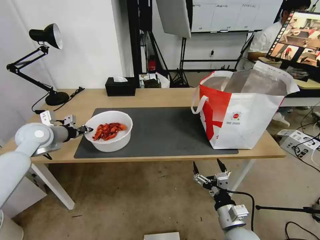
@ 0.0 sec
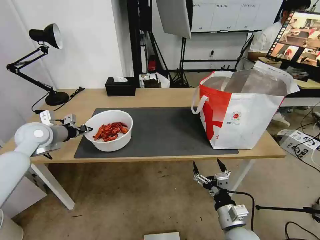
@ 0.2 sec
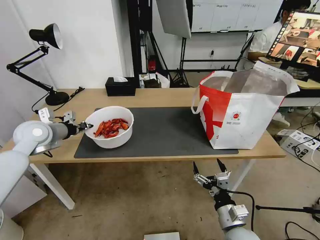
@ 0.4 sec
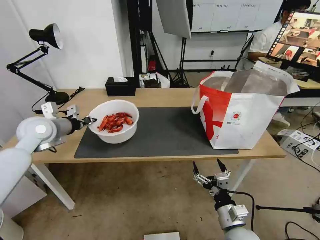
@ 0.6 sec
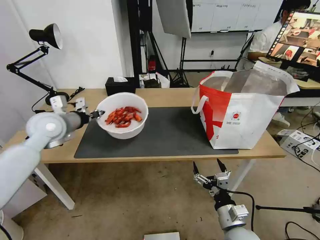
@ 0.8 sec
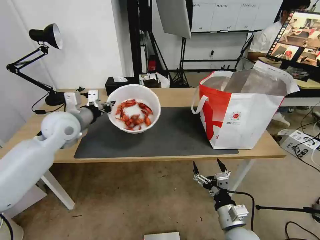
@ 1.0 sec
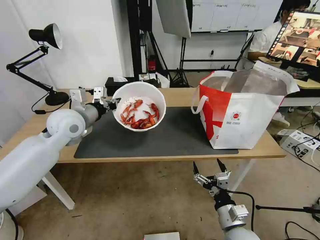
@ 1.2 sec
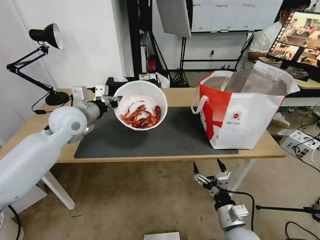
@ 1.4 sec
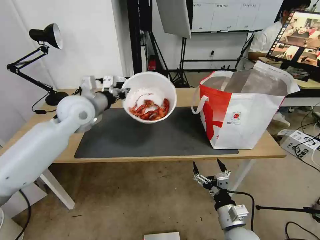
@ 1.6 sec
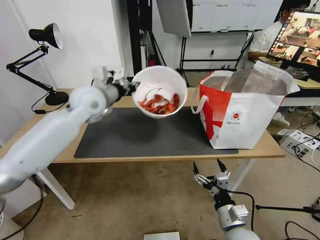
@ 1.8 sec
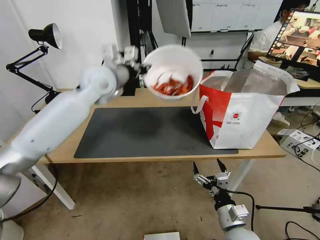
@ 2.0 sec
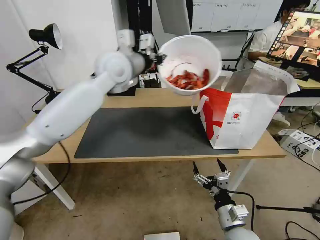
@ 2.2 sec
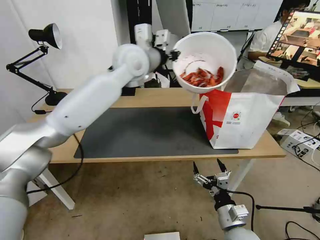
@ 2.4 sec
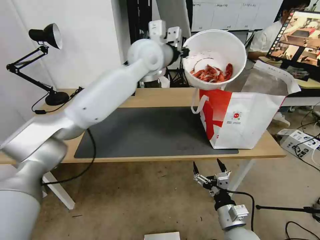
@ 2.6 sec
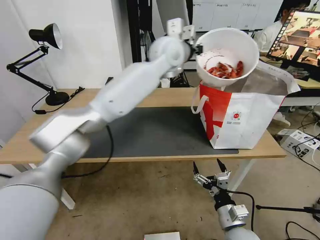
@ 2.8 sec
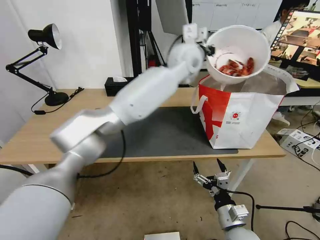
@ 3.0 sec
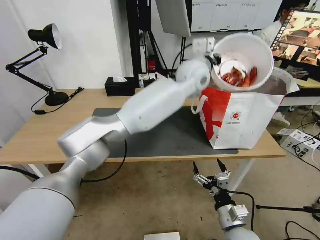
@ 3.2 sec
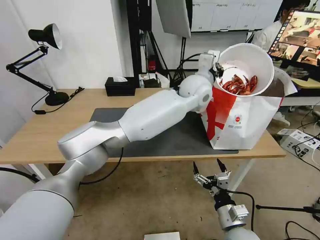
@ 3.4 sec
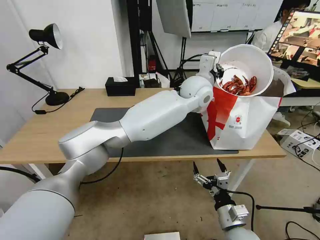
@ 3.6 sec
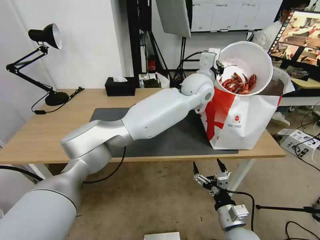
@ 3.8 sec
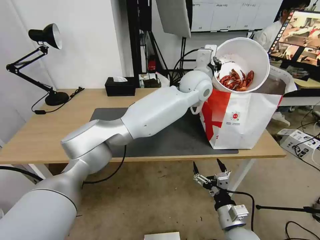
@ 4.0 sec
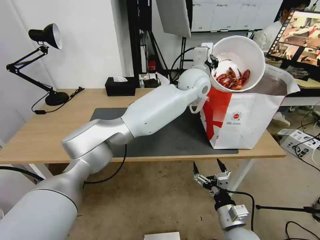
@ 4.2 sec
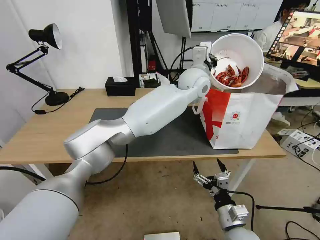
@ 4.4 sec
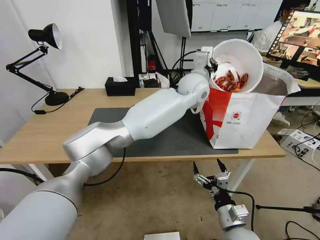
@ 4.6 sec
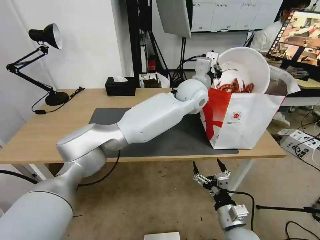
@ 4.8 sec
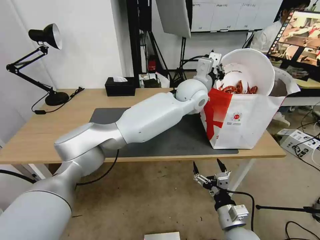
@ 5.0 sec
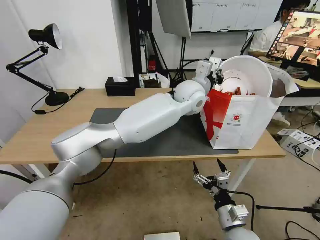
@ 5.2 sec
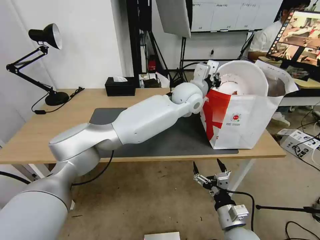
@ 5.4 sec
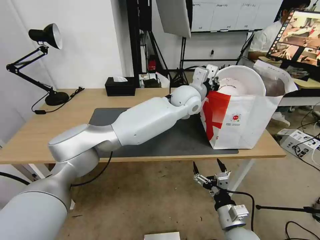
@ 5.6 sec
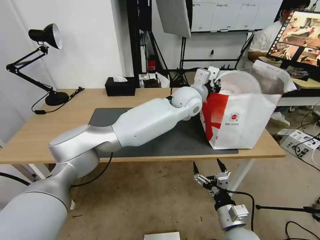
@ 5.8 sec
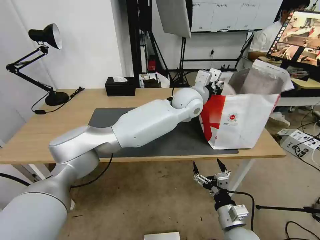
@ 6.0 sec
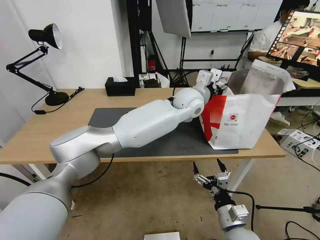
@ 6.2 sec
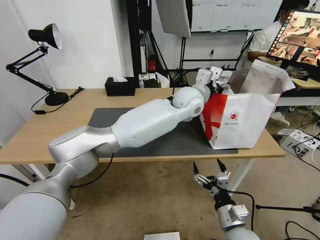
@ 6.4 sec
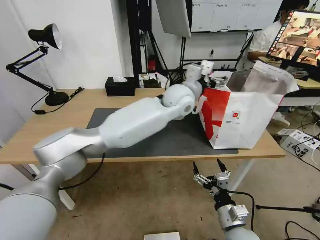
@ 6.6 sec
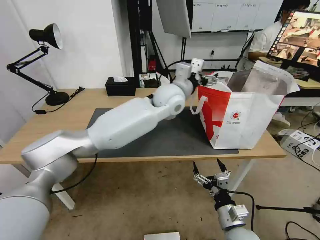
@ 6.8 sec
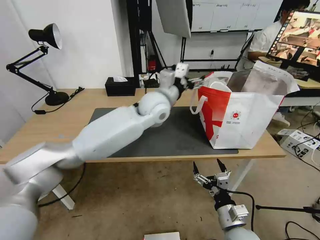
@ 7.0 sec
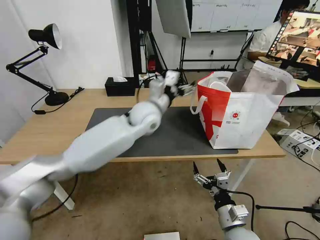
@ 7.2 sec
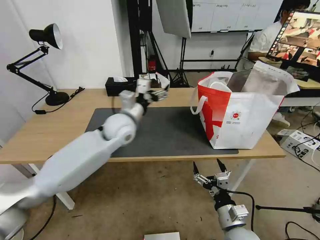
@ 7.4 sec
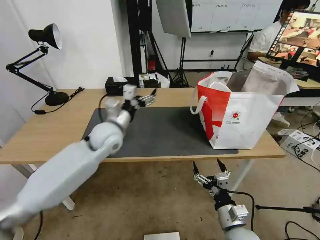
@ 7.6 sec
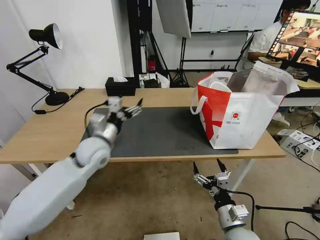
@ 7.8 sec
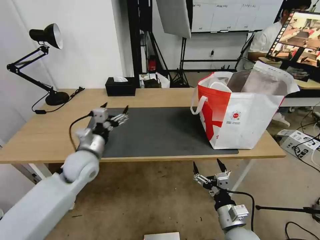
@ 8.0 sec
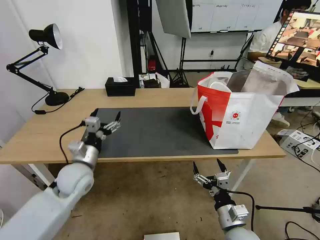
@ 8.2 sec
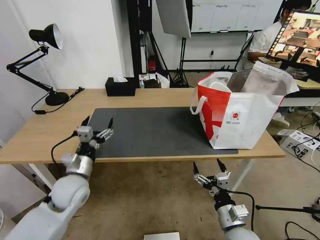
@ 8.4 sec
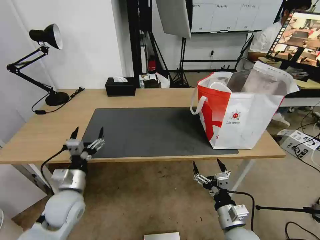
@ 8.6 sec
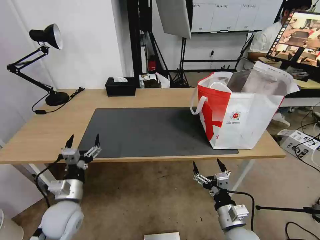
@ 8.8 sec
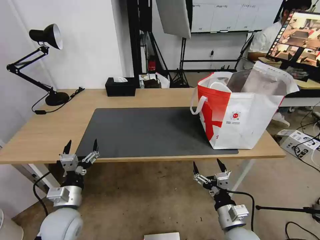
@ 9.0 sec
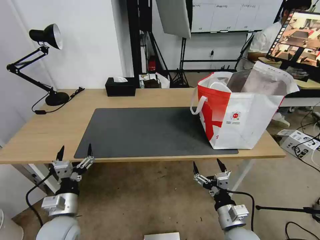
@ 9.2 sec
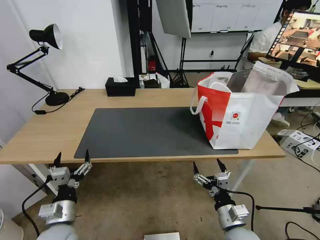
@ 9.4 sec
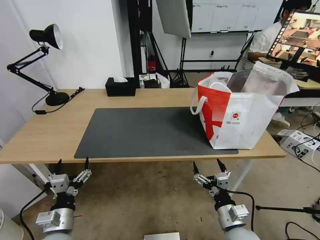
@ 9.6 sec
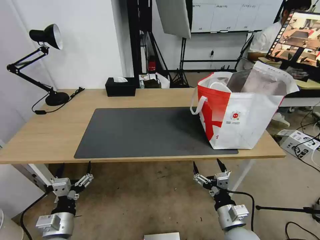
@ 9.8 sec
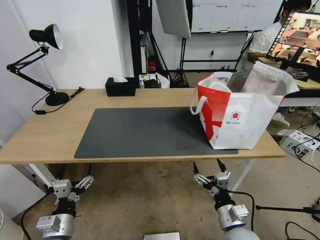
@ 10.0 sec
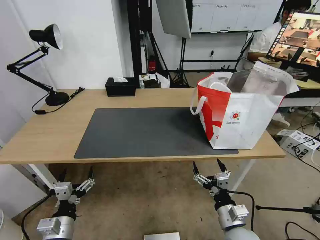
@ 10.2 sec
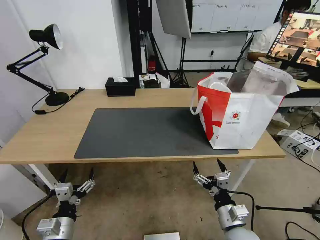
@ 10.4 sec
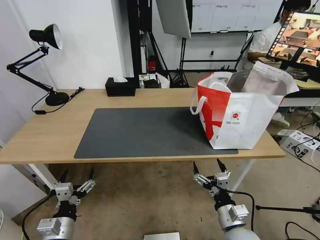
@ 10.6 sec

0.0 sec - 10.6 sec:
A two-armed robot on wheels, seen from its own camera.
Task of the whole recording: Pick up the trash from the table and place it into the takeout bag.
0.0 sec - 1.6 sec: The left gripper is displaced to the right and upward by roughly 15 cm.
1.6 sec - 3.0 sec: The left gripper is displaced to the right by about 30 cm.
3.0 sec - 4.6 sec: The left gripper moves downward, about 10 cm.
4.6 sec - 6.0 sec: The grippers stay close to where they were, moving slightly.
6.0 sec - 7.6 sec: The left gripper is displaced to the left by about 25 cm, and opens.
7.6 sec - 9.0 sec: The left gripper heads backward, downward and to the left, covering some 30 cm.
9.0 sec - 10.6 sec: The left gripper moves backward, approximately 10 cm.

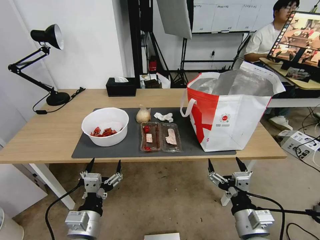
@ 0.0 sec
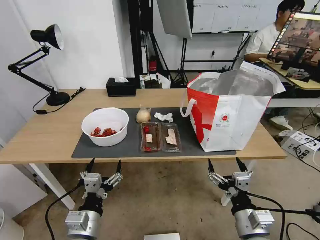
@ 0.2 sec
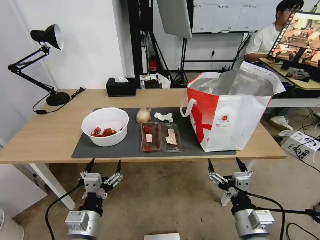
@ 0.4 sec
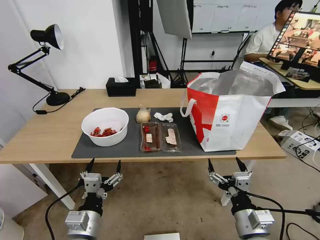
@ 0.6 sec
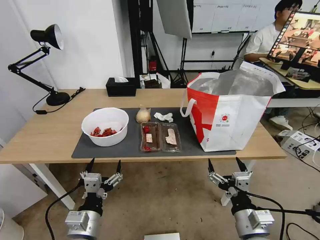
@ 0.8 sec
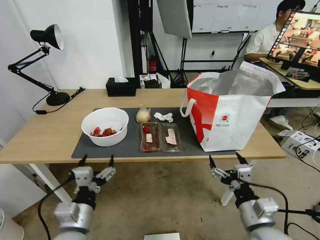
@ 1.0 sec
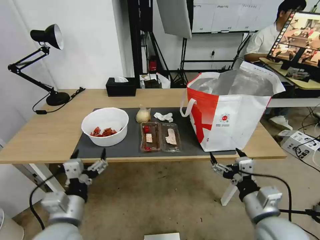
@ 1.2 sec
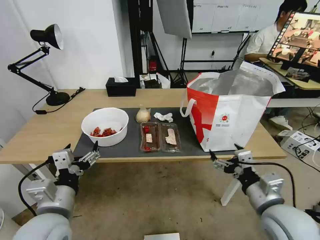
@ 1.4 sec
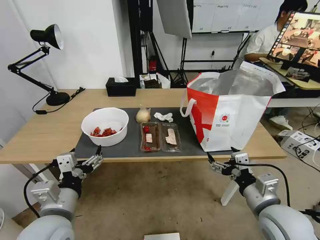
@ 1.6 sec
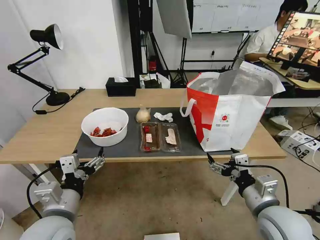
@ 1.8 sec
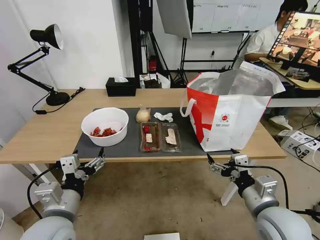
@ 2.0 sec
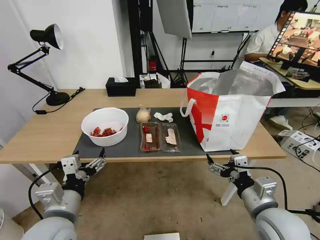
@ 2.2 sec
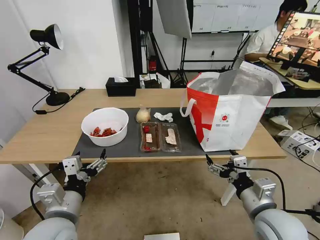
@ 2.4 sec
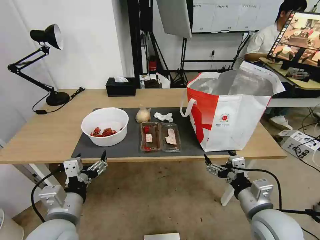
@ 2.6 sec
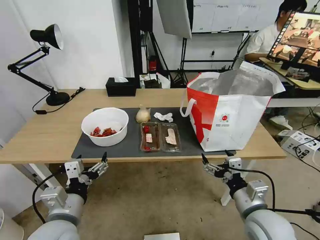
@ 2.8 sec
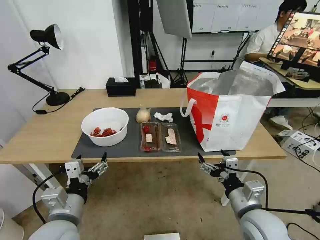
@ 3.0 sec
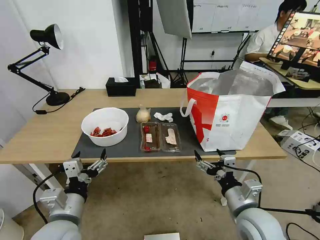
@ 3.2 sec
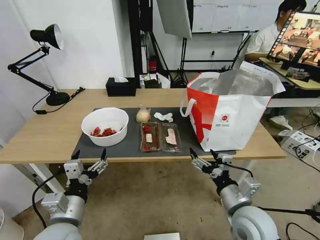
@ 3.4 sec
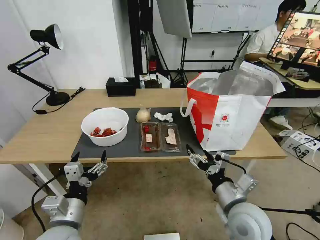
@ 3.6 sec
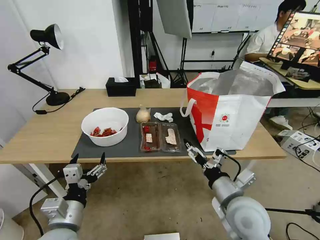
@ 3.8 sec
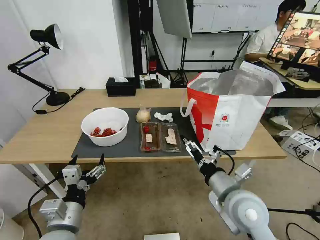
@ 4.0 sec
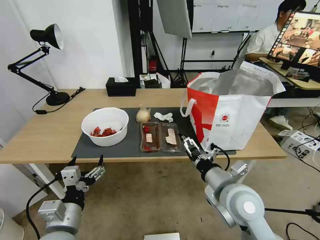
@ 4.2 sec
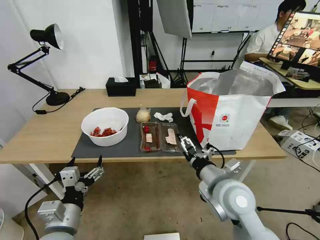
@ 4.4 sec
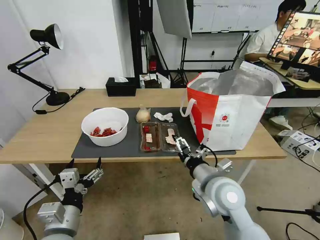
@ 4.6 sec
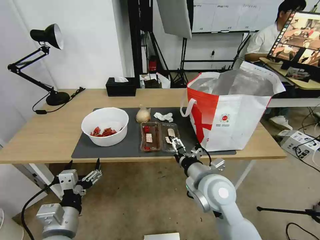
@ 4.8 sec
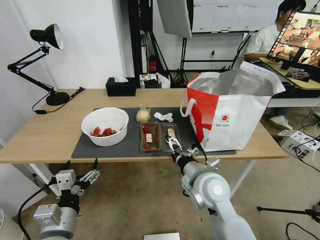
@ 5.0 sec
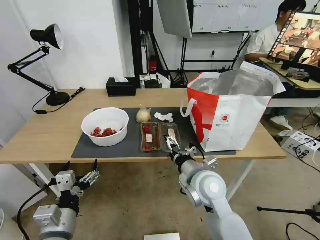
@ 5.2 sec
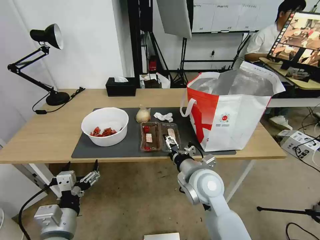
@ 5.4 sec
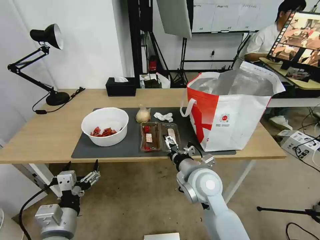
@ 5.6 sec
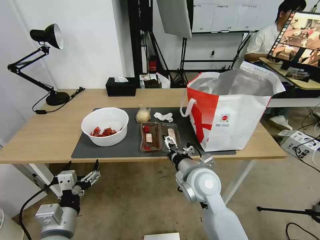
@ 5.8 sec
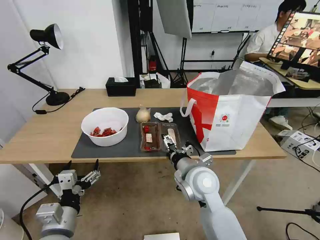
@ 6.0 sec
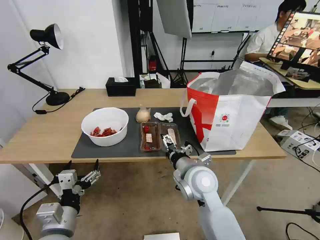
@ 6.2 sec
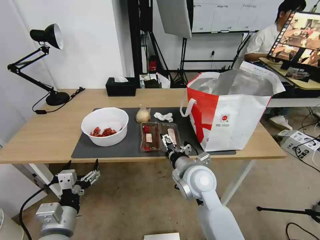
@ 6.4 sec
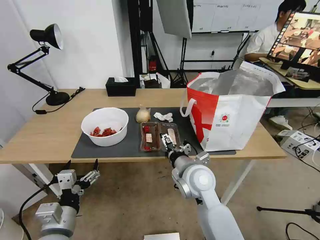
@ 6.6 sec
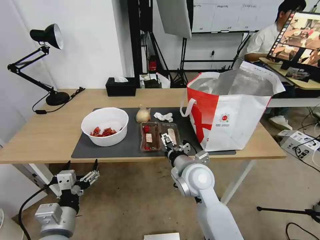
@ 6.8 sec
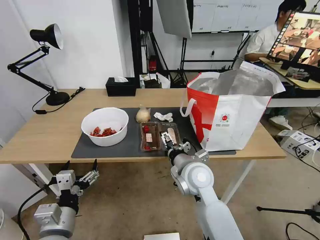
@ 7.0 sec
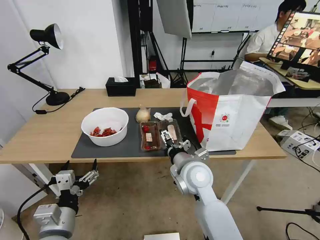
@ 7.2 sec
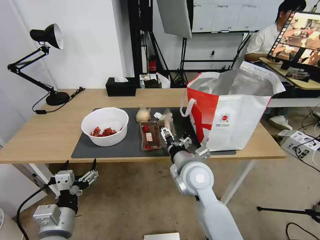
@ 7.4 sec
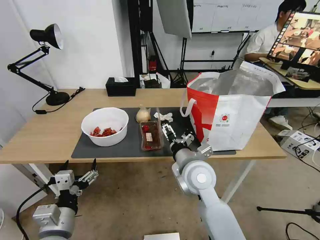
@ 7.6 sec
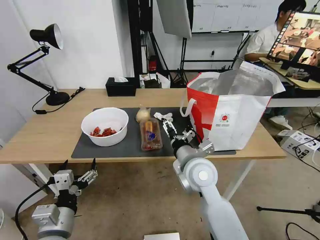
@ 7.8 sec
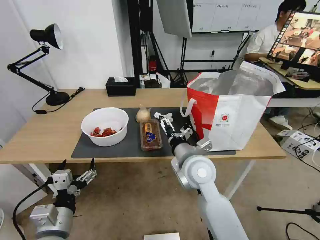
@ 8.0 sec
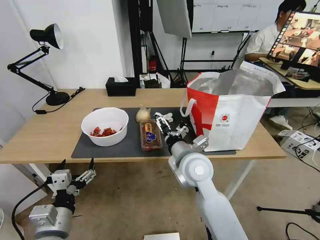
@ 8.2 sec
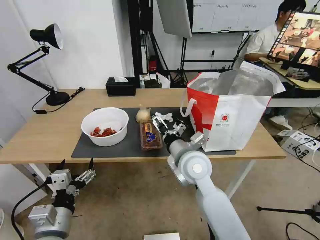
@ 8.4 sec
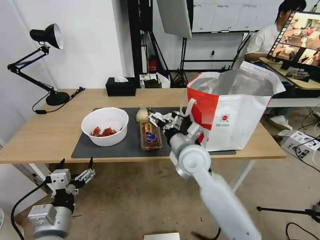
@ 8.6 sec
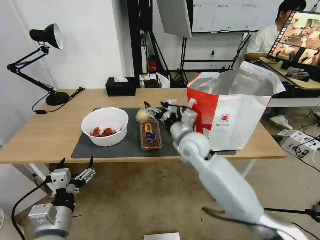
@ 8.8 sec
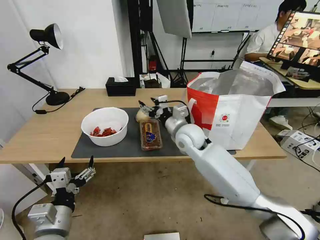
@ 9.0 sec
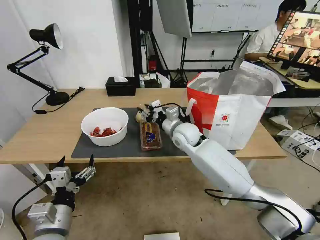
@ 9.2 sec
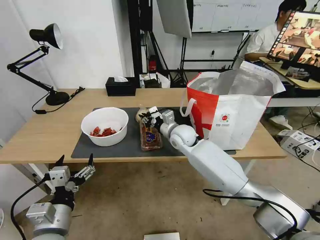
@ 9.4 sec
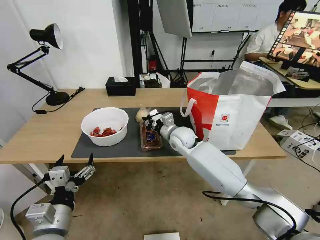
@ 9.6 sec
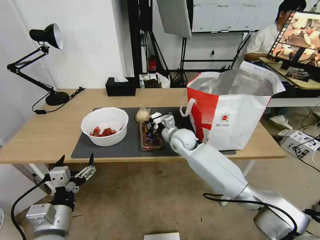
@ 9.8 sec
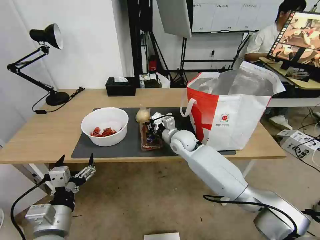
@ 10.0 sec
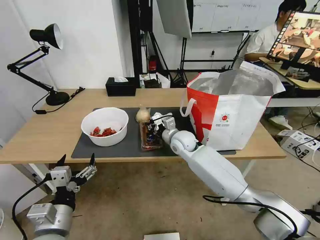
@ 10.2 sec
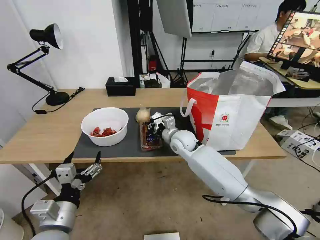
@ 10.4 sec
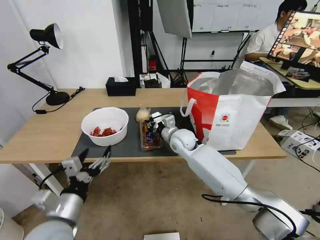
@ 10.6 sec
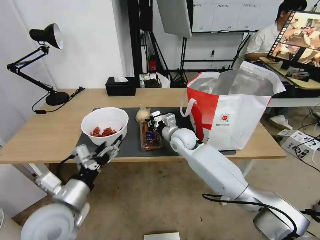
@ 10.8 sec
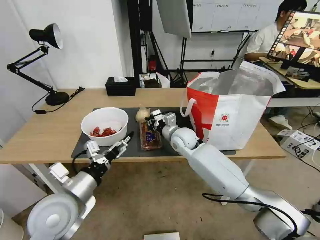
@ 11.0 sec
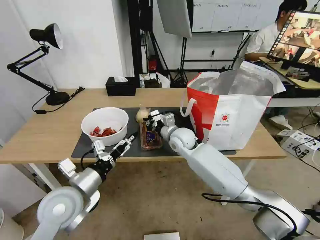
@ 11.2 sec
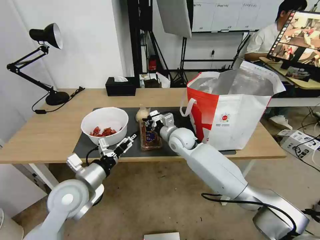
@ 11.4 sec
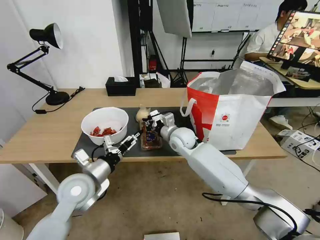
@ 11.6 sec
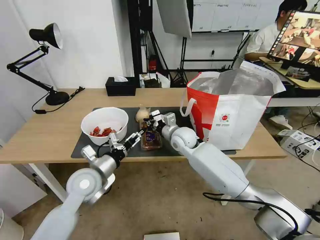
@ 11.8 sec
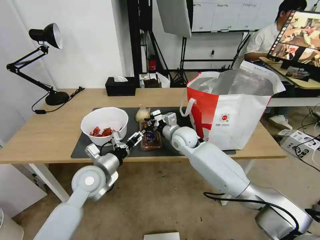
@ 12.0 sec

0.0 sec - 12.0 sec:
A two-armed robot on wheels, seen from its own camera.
Task of the whole recording: Pick up the trash from the table and place it into the takeout bag.
1.6 sec - 3.0 sec: The grippers make only small movements.
3.0 sec - 4.4 sec: The right gripper shifts roughly 10 cm to the left and forward.
4.4 sec - 6.0 sec: The right gripper travels to the left by about 5 cm.
6.0 sec - 7.6 sec: The grippers move only a little.
7.6 sec - 9.0 sec: The right gripper shifts some 15 cm forward, and closes its fingers.
9.0 sec - 10.4 sec: The right gripper goes about 5 cm downward, and closes.
10.4 sec - 12.0 sec: The left gripper moves forward, approximately 20 cm.
